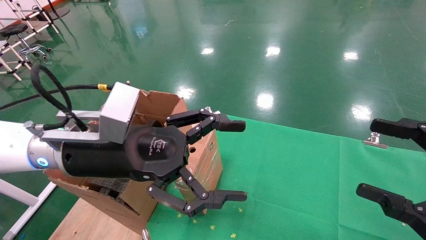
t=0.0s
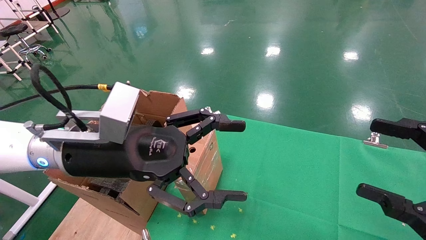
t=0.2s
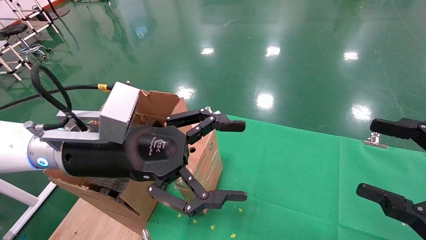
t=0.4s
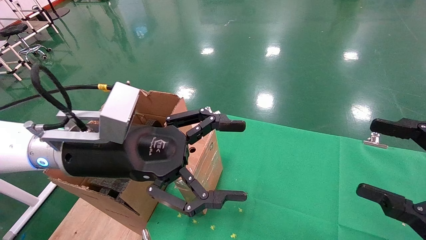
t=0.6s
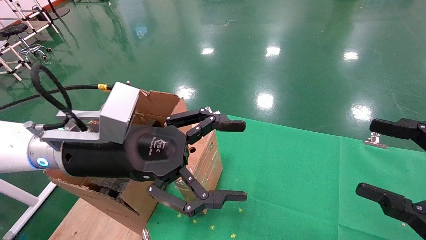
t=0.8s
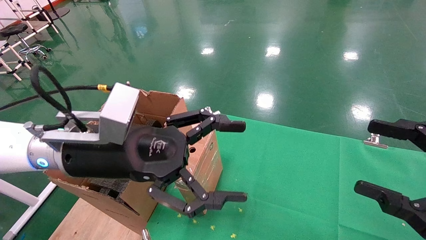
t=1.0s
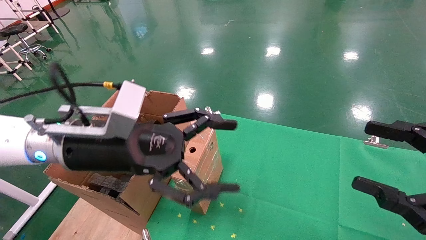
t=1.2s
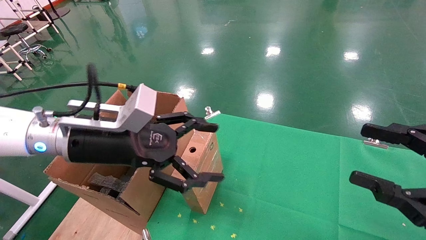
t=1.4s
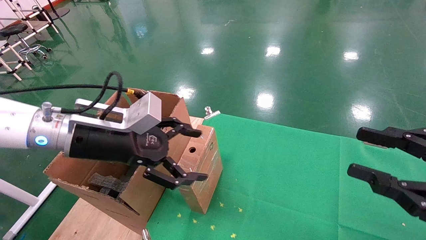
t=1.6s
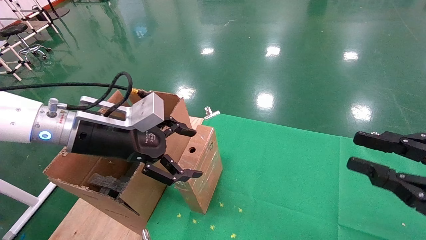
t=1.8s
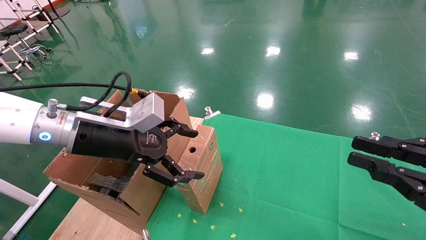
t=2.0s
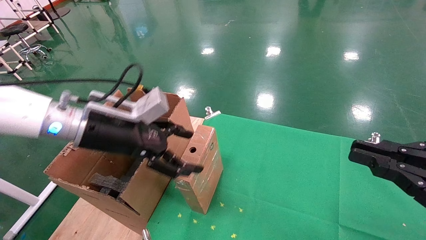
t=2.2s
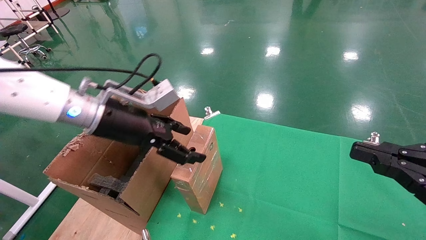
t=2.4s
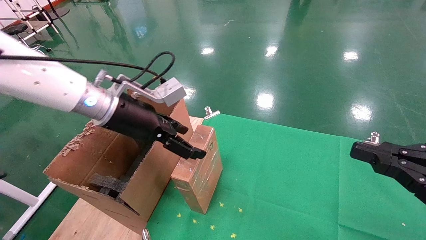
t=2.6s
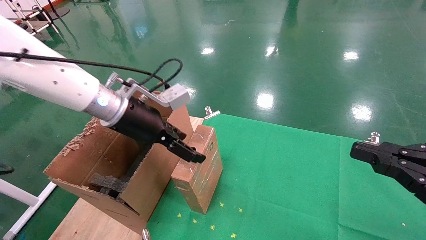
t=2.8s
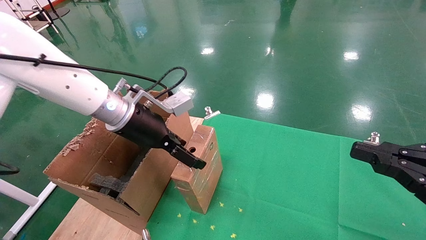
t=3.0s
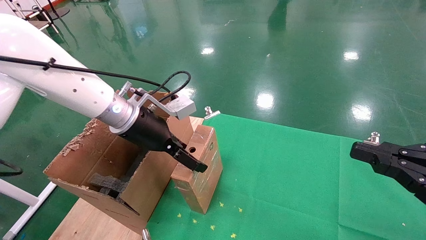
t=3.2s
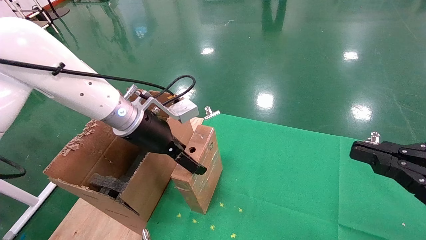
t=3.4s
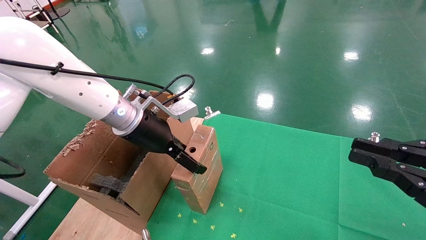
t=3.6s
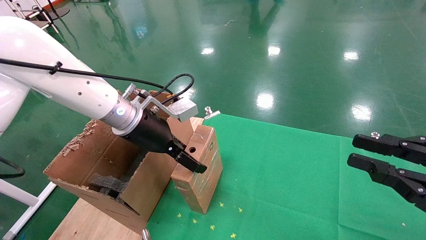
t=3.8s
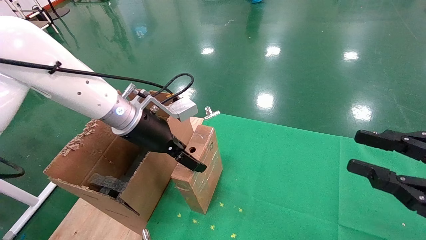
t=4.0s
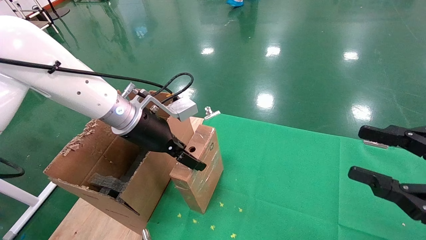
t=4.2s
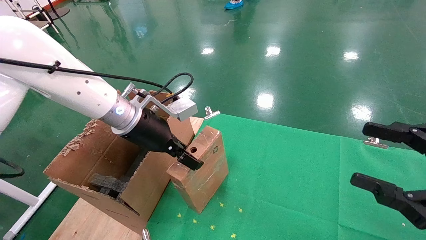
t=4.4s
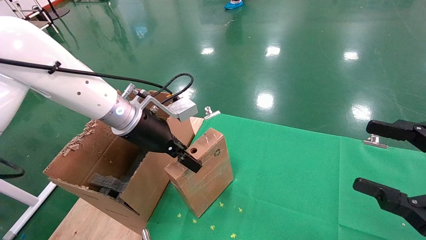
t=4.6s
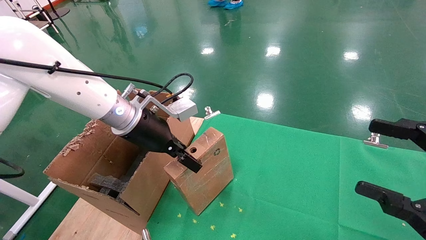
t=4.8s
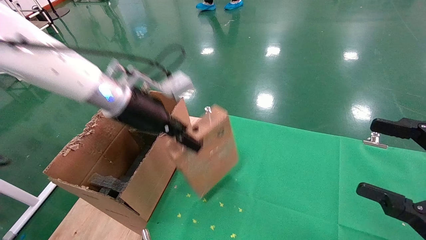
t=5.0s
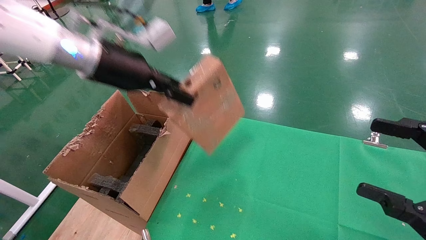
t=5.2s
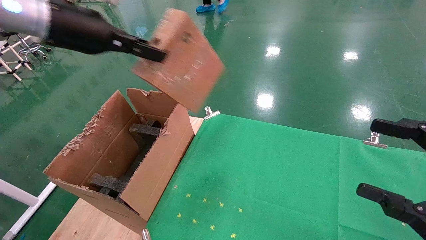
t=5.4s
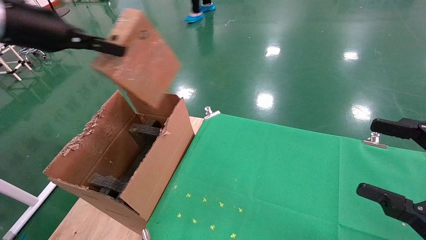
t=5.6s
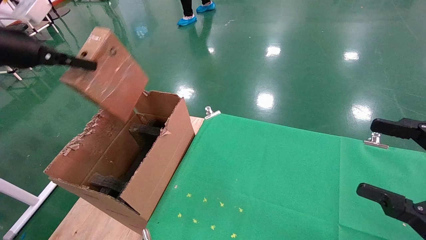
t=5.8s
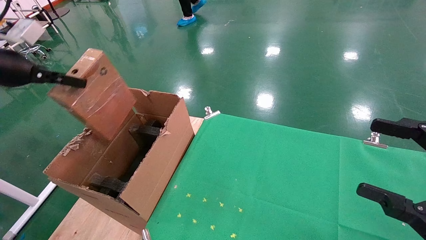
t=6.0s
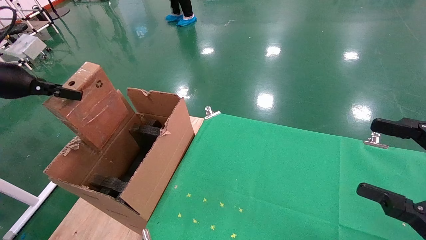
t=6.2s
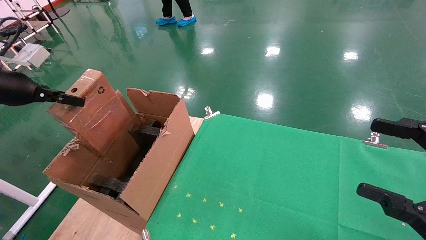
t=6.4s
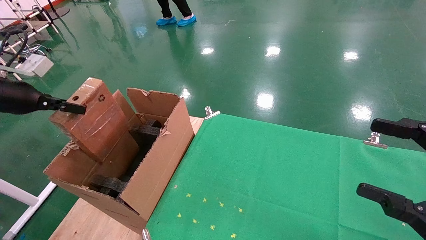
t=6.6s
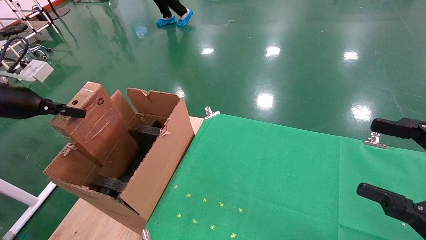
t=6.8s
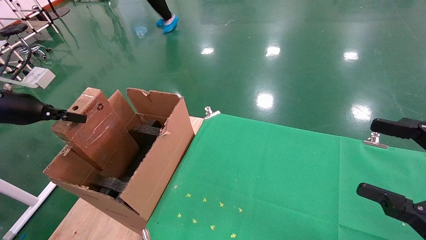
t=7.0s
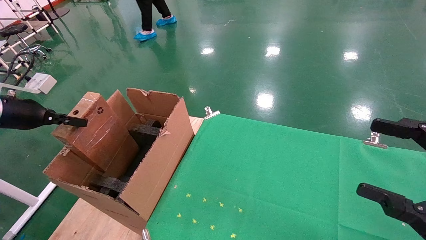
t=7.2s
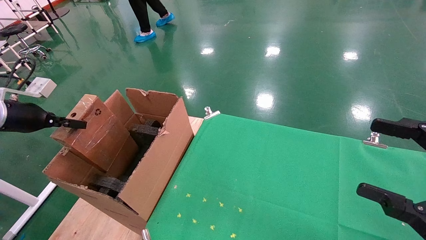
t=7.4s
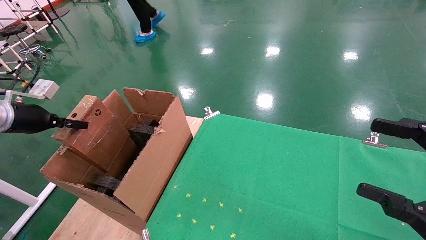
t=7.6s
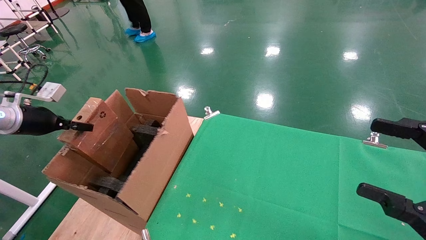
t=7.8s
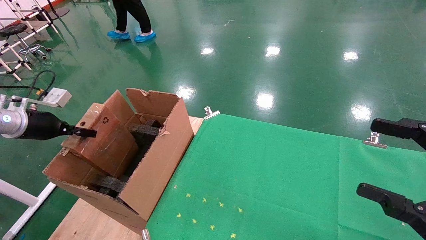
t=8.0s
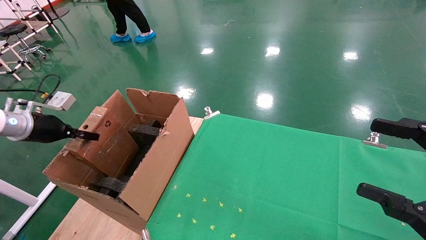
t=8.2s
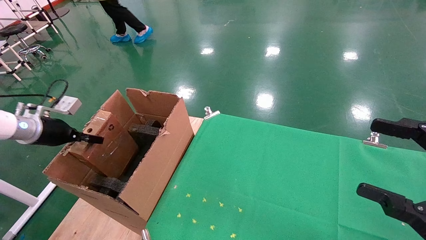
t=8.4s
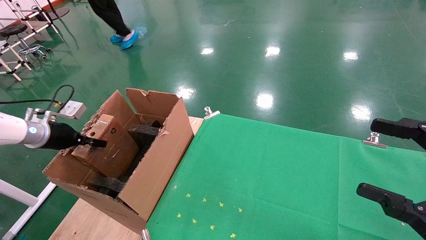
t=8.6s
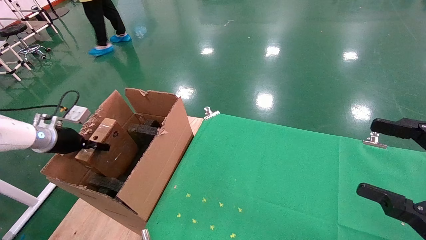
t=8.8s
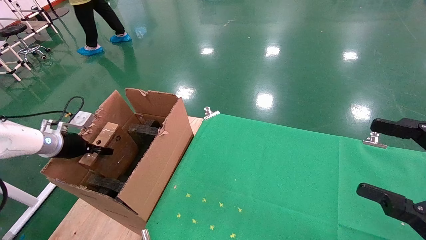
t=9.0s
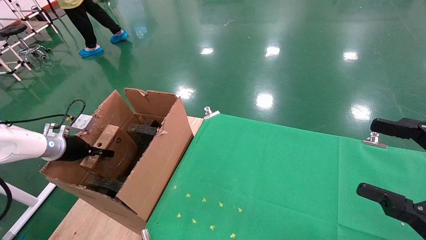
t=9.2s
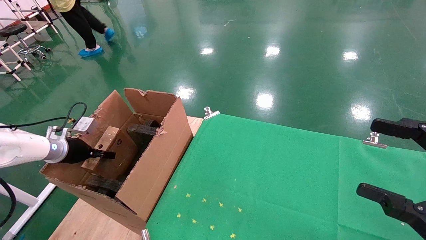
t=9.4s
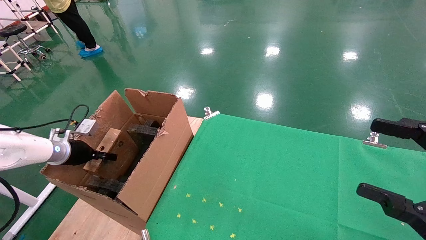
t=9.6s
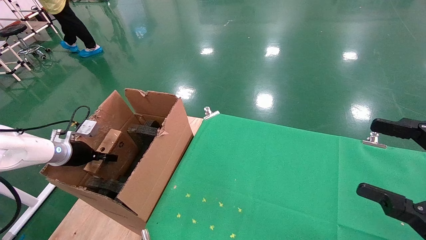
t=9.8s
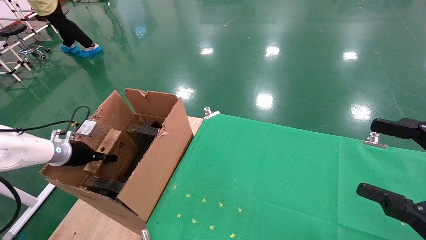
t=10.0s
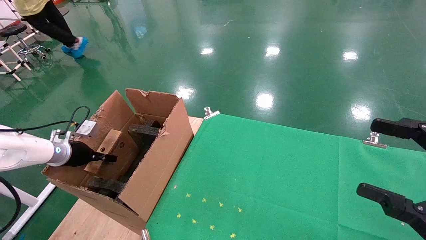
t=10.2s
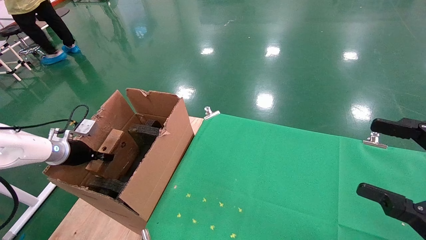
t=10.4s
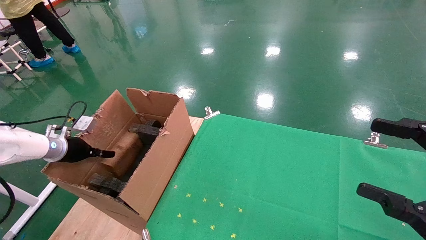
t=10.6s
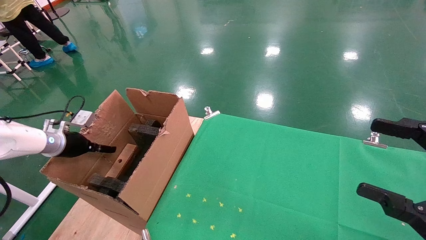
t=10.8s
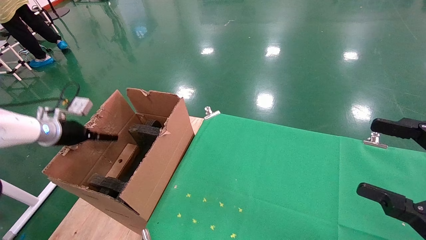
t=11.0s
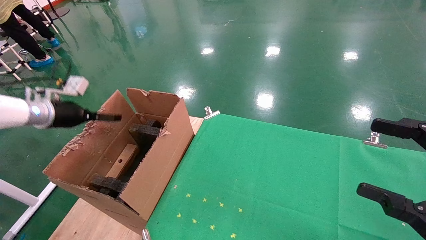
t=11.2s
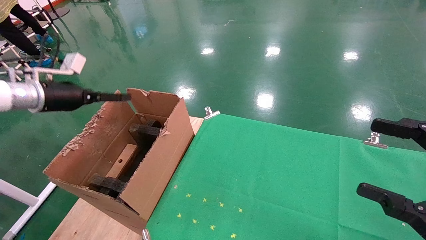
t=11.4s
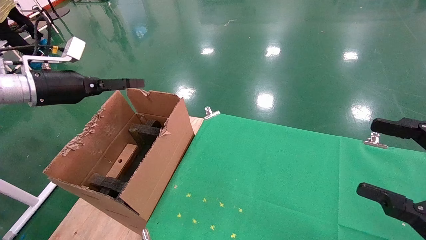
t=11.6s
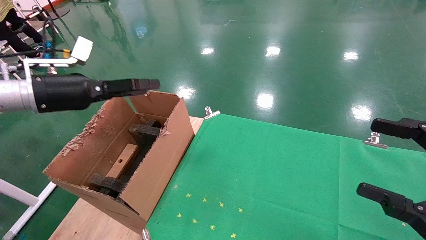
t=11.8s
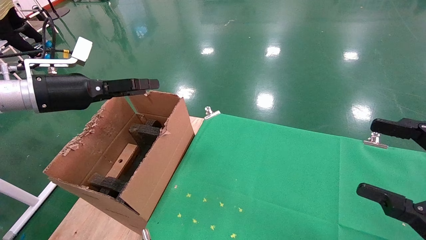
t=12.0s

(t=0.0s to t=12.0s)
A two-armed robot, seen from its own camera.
Task of the whole recording: using a robotic arm to pick up a cardboard box and palace it the carton.
Step, t=1.4s - t=4.6s: Pick up the mouse and the power cord paper box.
Step, t=4.8s - t=11.4s: Place the mouse and the power cord paper box into the container.
t=0.0s - t=1.6s: The left gripper shifts by roughly 5 cm, while the right gripper closes up.
t=1.6s - t=3.0s: The left gripper goes some 10 cm forward. The right gripper closes.
t=3.0s - t=4.4s: The left gripper closes up. Meanwhile the right gripper opens.
t=4.4s - t=6.0s: The left gripper heads to the left and upward, covering some 30 cm, and closes up. The right gripper opens up.
t=6.0s - t=7.6s: The left gripper is displaced downward and to the left by about 15 cm.
t=7.6s - t=9.0s: The left gripper is displaced downward and forward by roughly 10 cm.
t=9.0s - t=10.4s: The grippers move only a little.
t=10.4s - t=12.0s: The left gripper moves upward and to the right, approximately 20 cm, and opens up.

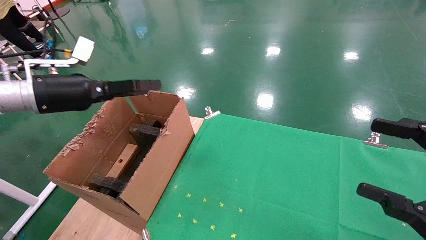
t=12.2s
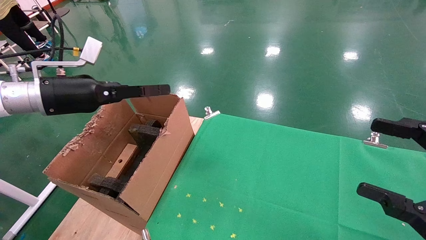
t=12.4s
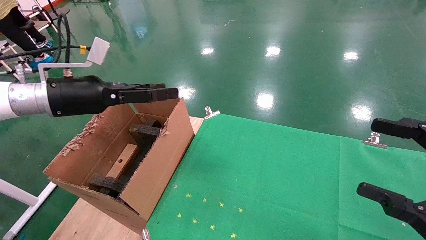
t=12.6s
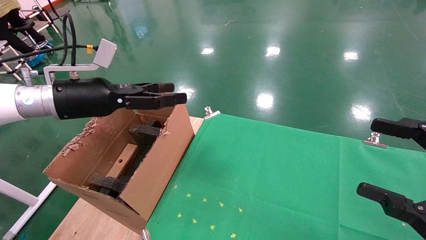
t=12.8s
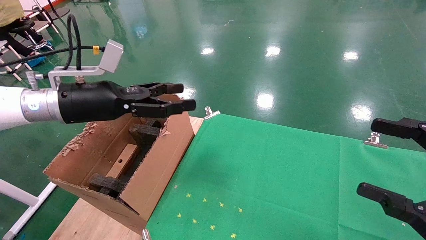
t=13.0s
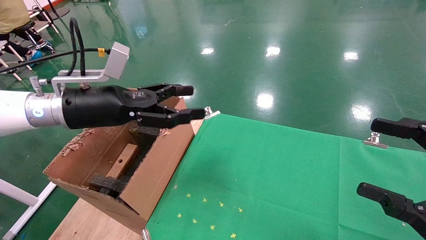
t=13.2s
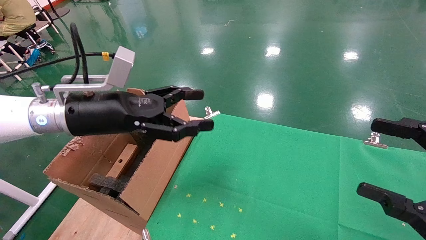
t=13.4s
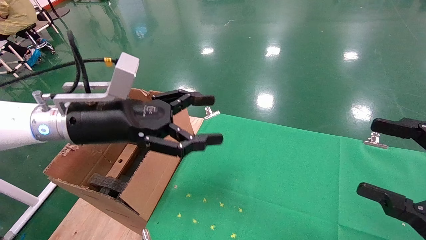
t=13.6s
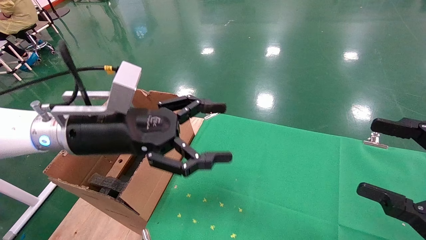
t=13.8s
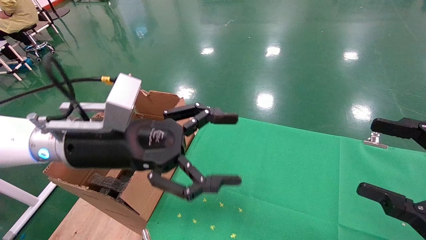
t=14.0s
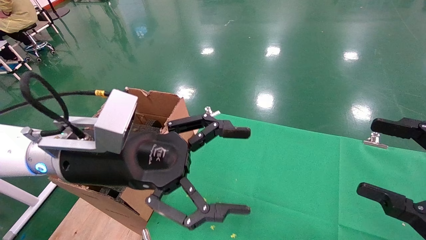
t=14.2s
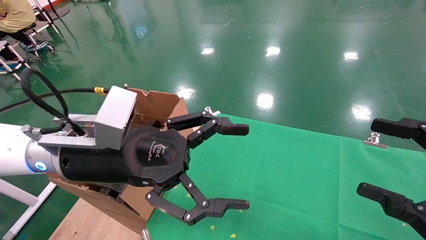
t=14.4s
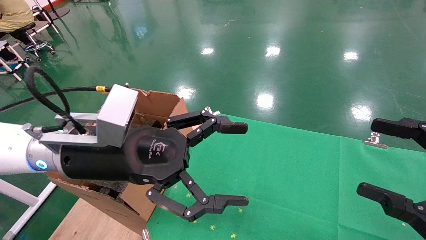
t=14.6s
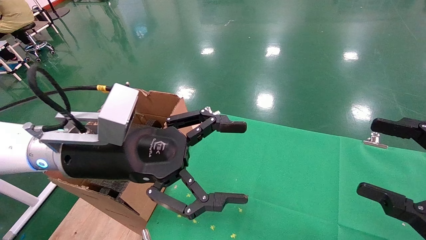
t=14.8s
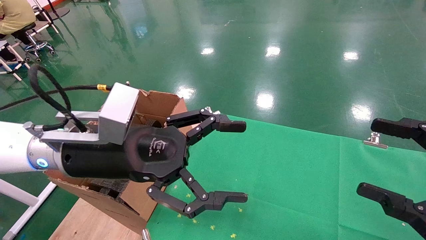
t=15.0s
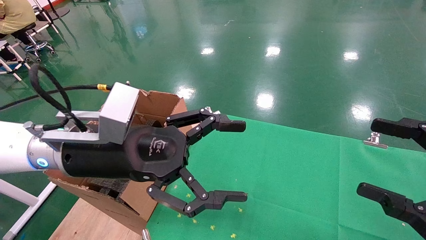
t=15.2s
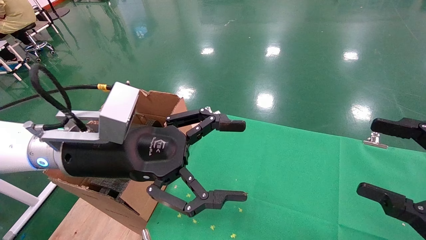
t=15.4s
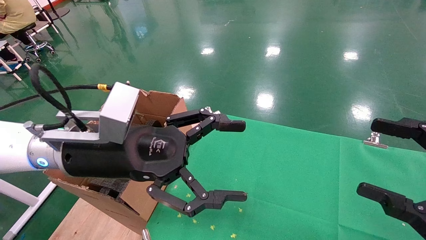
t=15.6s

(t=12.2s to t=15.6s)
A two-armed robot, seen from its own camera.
Task of the whole recording: using a robotic arm to pick up a cardboard box and palace it the carton.
t=12.2s - t=13.8s: The left gripper travels to the right by approximately 15 cm.
t=13.8s - t=15.6s: There are only small adjustments of the grippers.

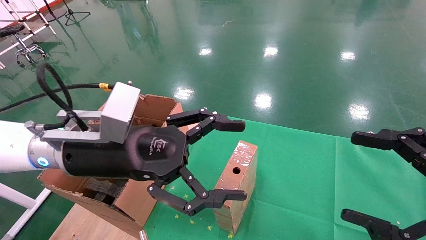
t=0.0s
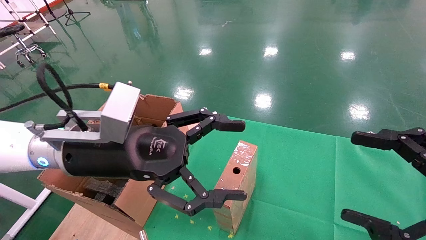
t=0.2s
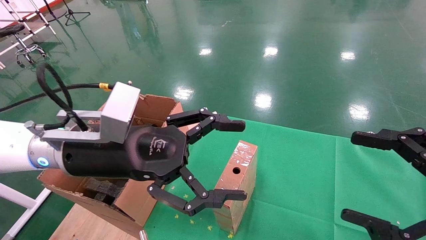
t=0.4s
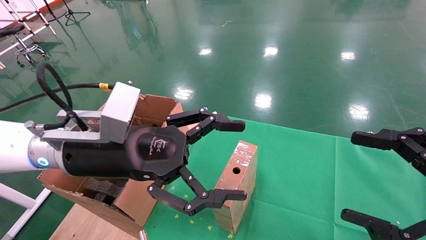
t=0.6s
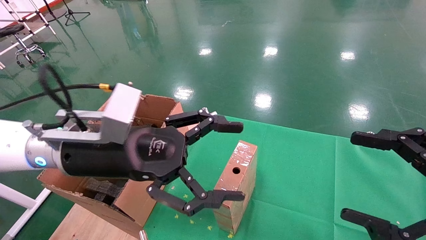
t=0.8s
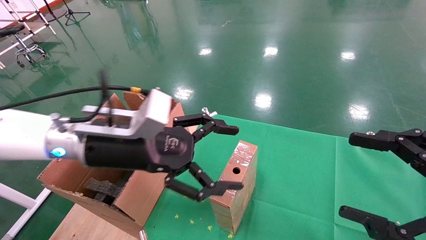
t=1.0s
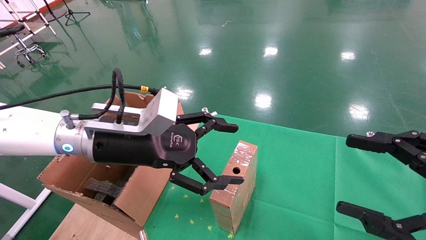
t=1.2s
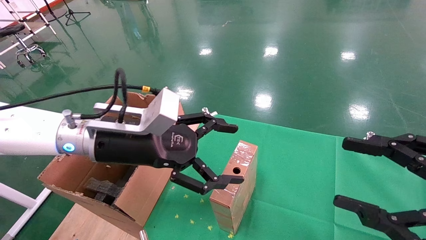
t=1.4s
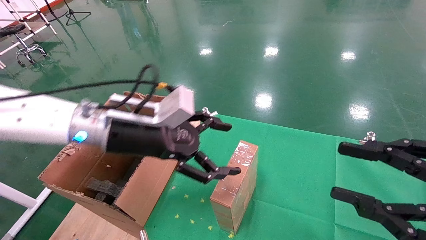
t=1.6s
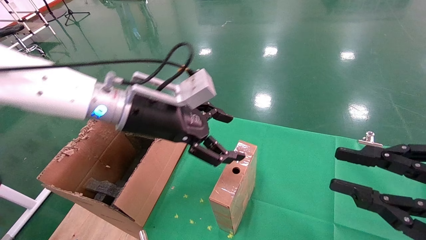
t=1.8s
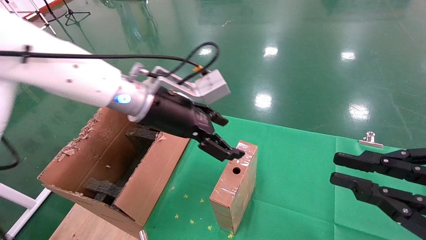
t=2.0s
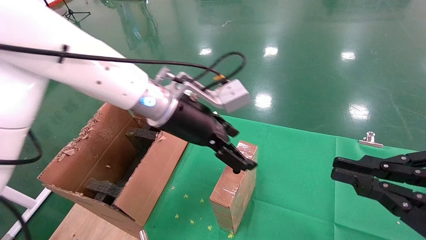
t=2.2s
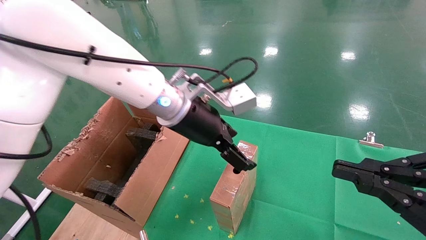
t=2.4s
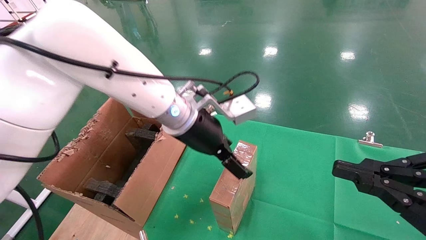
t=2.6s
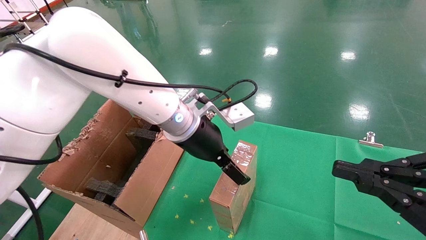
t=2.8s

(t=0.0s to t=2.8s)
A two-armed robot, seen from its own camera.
Task of the whole recording: using a robotic arm to pick up a cardboard box and palace it the carton.
t=1.4s - t=2.8s: The left gripper shifts about 15 cm to the right and forward, while the right gripper closes its fingers.
